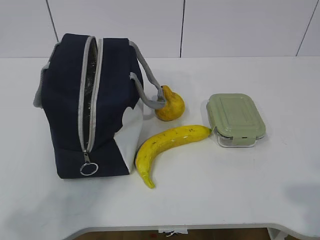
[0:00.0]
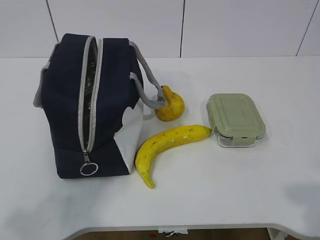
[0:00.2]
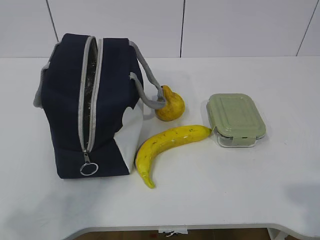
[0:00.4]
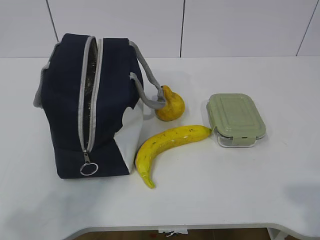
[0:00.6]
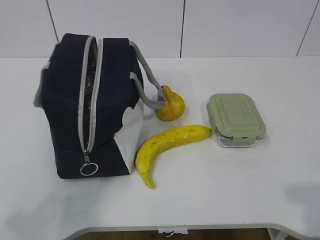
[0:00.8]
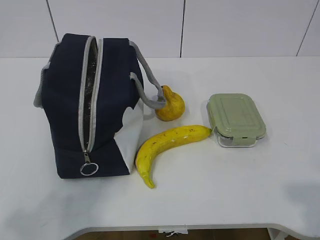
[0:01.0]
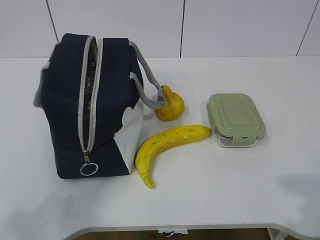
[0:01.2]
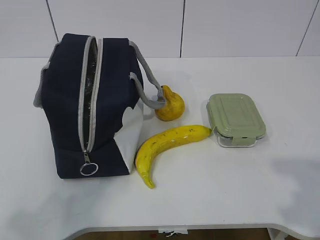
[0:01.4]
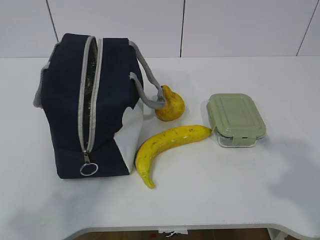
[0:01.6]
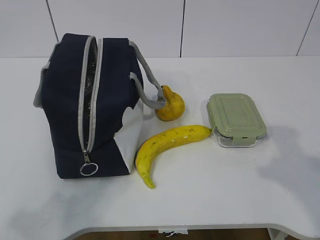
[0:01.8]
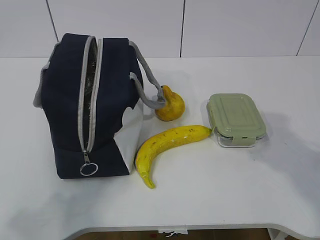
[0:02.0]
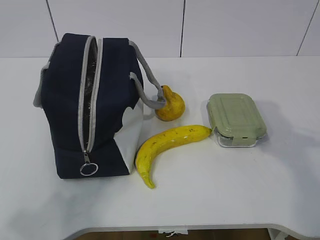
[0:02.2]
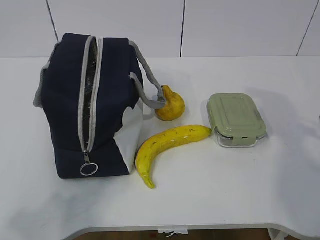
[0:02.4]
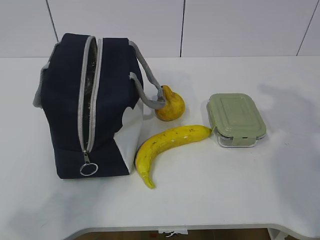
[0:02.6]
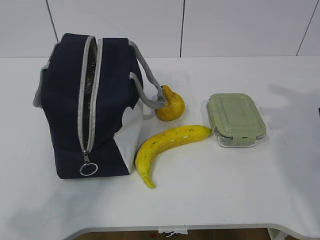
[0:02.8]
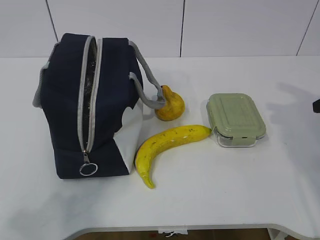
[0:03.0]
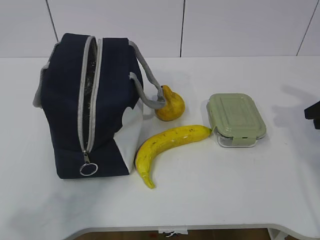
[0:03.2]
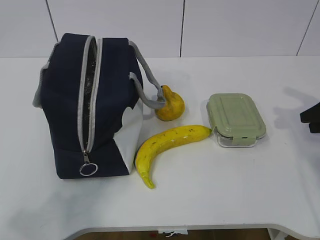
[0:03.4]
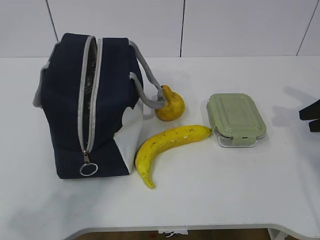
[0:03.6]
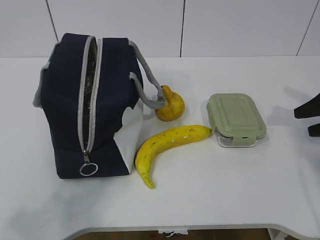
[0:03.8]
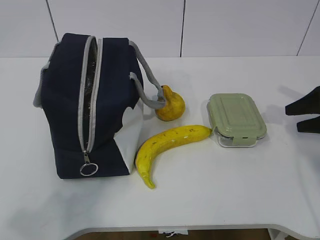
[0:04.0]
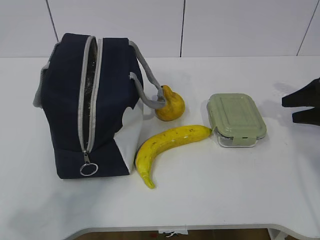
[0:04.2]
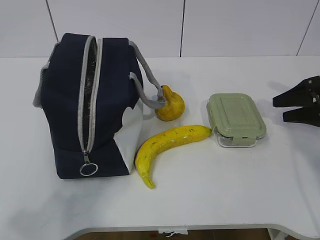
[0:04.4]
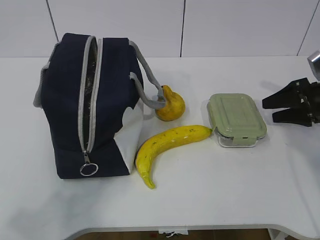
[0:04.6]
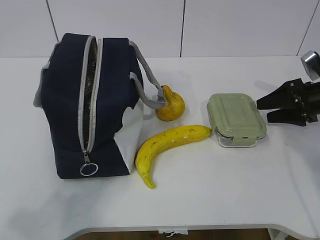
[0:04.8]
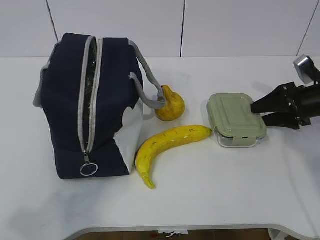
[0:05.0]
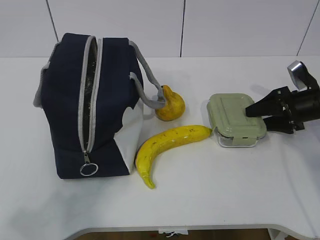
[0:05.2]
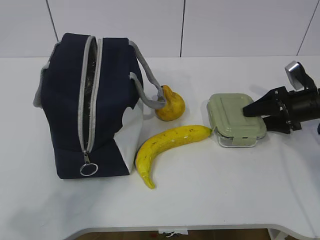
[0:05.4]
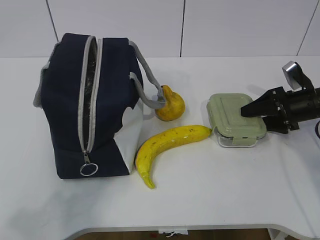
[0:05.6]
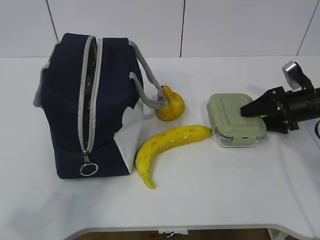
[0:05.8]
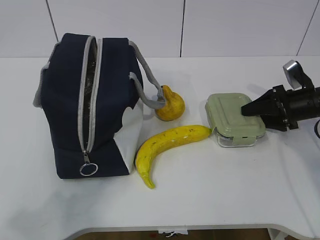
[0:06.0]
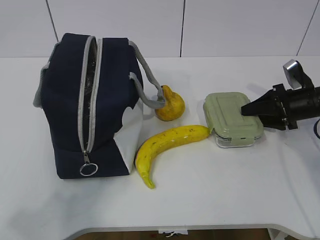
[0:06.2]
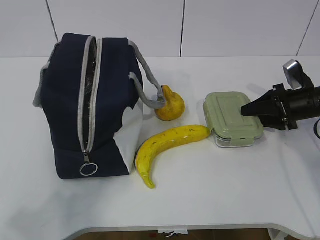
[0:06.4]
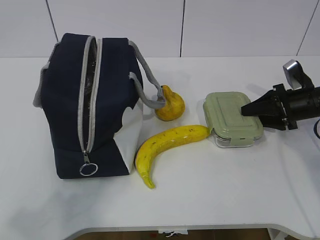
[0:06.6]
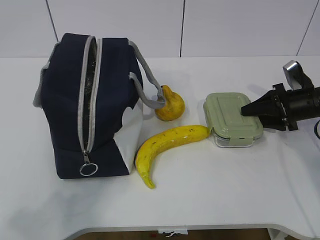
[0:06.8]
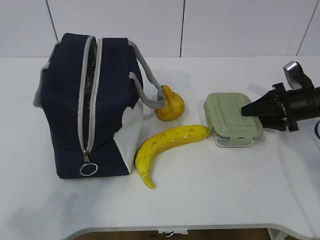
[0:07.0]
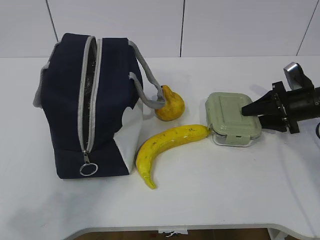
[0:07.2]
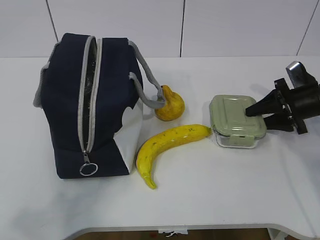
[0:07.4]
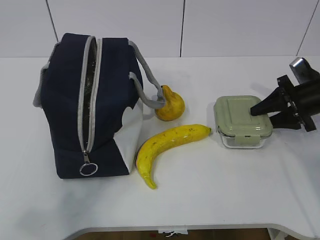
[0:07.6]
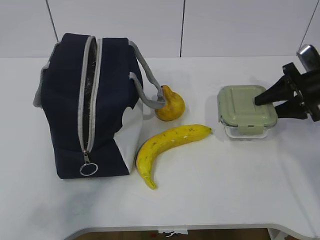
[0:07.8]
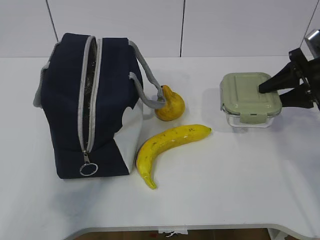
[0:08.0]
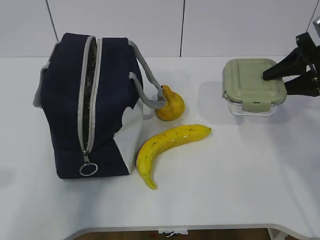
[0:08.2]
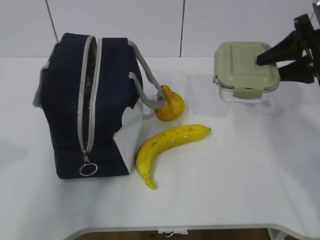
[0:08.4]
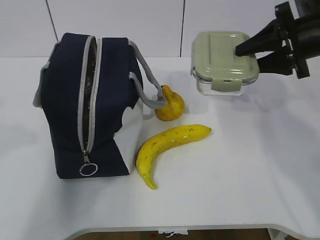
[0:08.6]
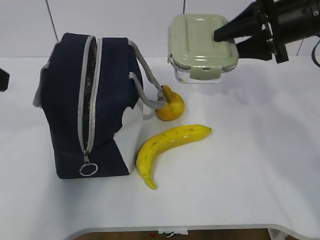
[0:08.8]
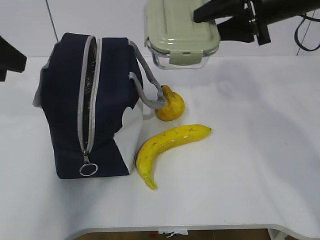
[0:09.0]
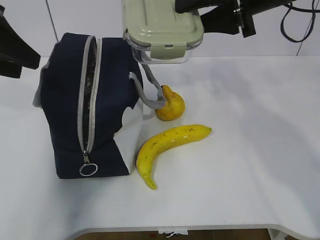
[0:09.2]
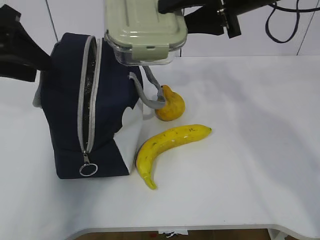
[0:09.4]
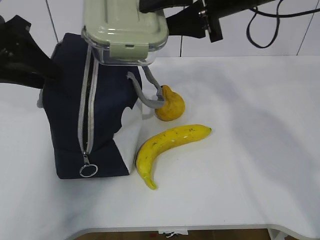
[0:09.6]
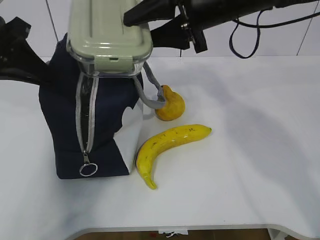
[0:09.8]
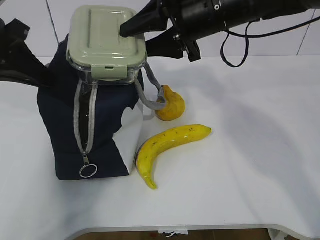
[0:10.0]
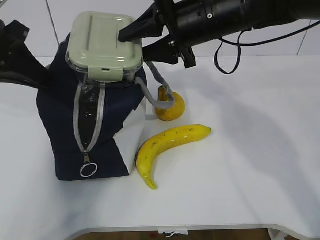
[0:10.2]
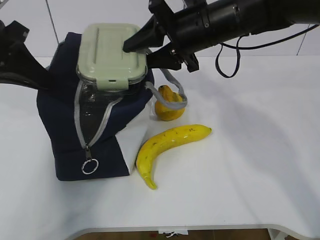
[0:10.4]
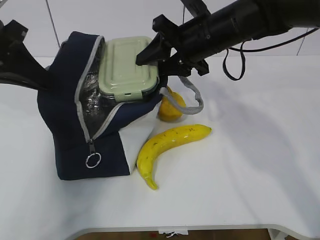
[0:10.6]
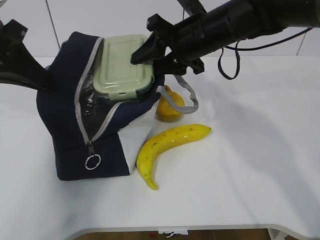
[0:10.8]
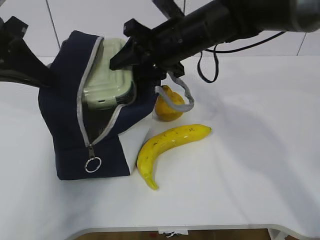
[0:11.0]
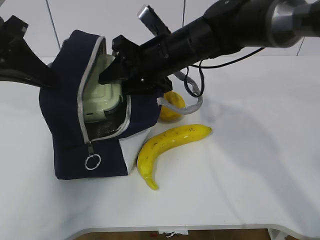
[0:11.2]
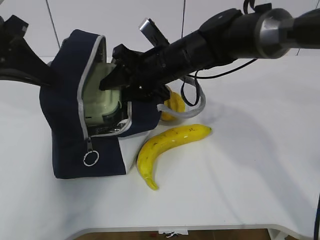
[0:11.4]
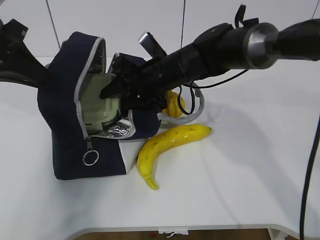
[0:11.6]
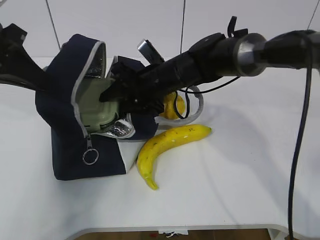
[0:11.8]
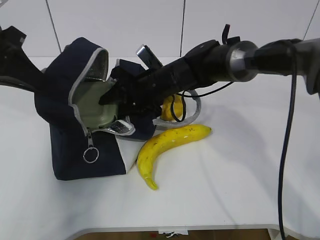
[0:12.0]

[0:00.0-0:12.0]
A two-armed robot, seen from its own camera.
Step, 0:00.0 to 0:06.2: Grasp the box with the right gripper.
0:01.6 to 0:03.0: The right gripper moves forward and to the right, about 25 cm.
0:03.0 to 0:04.4: The right gripper shifts approximately 10 cm downward and forward.
0:04.4 to 0:06.0: The right gripper is displaced to the left by about 5 cm.
0:06.0 to 0:07.6: The grippers move only a little.
0:07.6 to 0:09.0: The right gripper moves upward and to the left, approximately 25 cm; the left gripper goes approximately 25 cm forward.
0:09.0 to 0:10.4: The right gripper shifts some 10 cm to the left. The left gripper moves forward and downward, about 10 cm, and closes up.
0:10.4 to 0:12.0: The right gripper travels downward and to the left by roughly 15 cm.

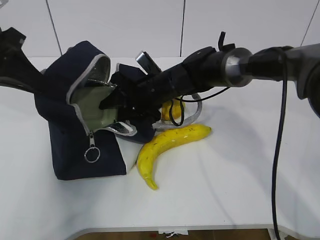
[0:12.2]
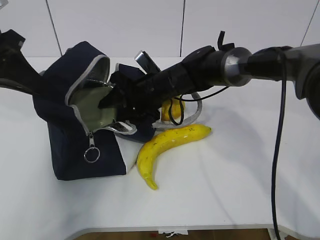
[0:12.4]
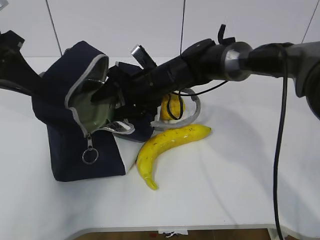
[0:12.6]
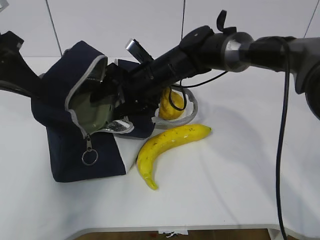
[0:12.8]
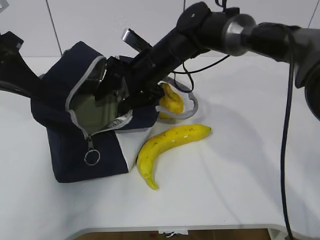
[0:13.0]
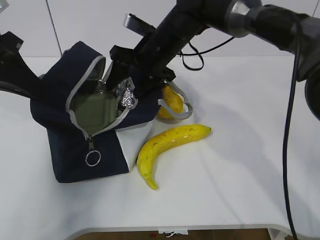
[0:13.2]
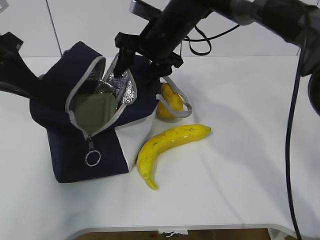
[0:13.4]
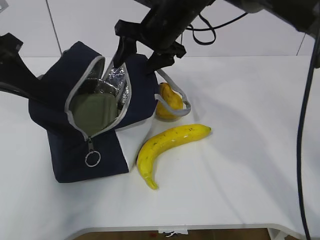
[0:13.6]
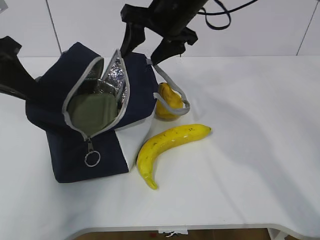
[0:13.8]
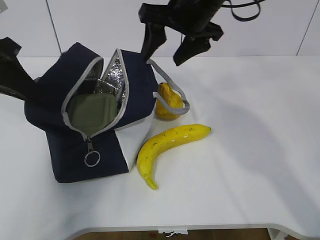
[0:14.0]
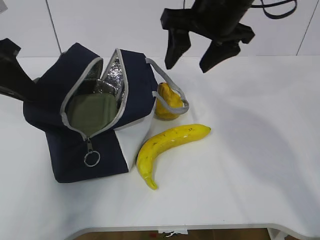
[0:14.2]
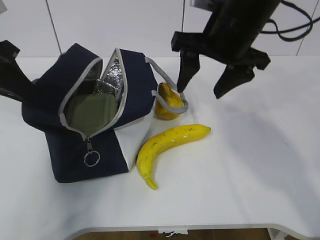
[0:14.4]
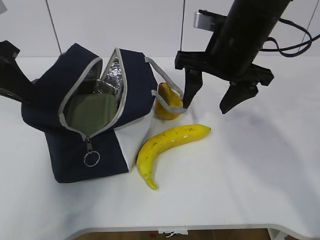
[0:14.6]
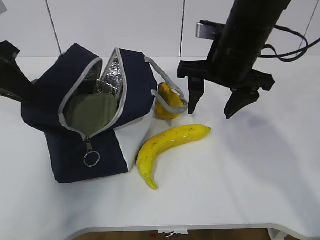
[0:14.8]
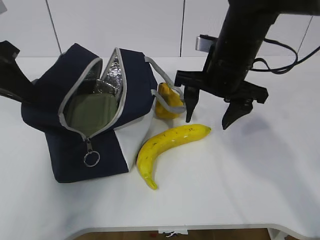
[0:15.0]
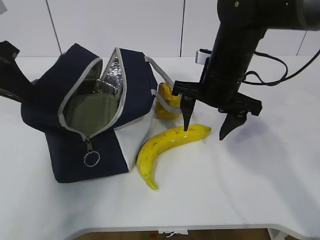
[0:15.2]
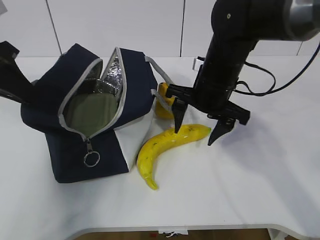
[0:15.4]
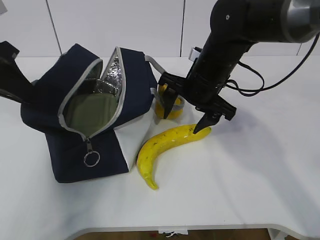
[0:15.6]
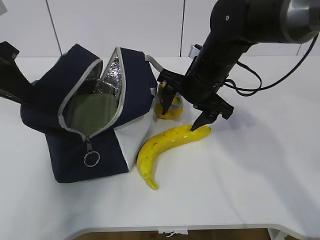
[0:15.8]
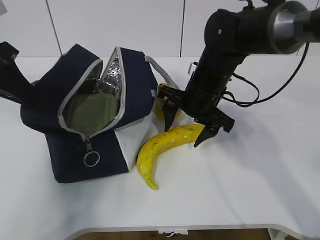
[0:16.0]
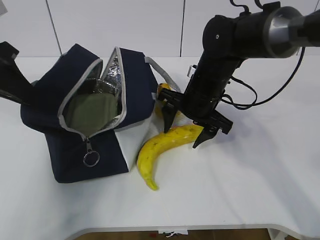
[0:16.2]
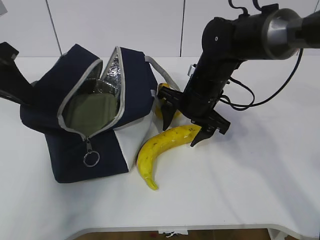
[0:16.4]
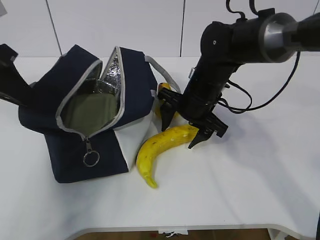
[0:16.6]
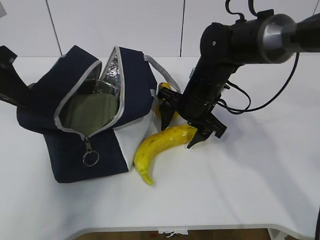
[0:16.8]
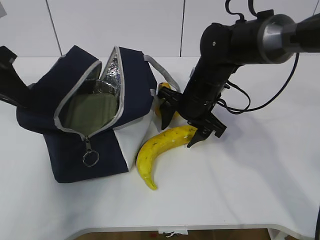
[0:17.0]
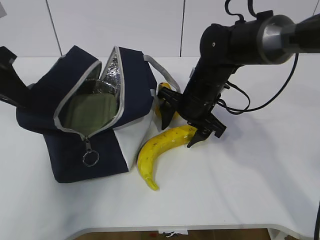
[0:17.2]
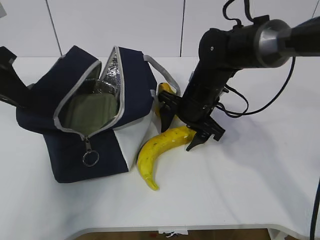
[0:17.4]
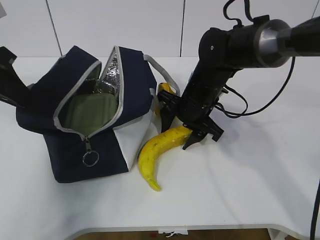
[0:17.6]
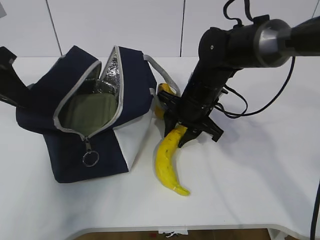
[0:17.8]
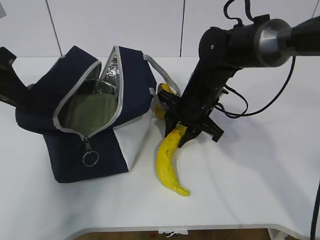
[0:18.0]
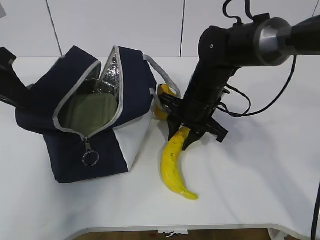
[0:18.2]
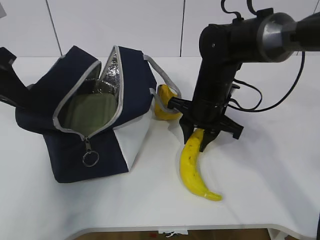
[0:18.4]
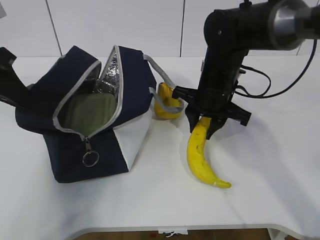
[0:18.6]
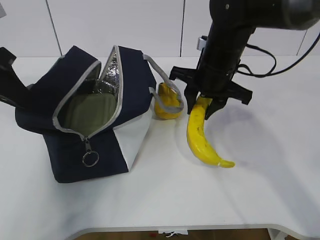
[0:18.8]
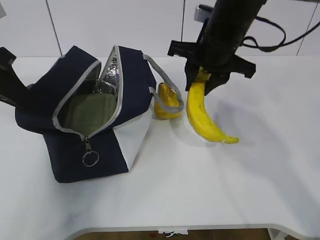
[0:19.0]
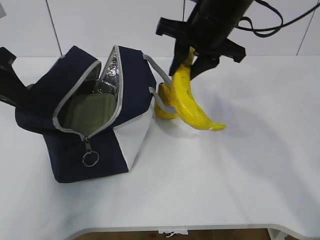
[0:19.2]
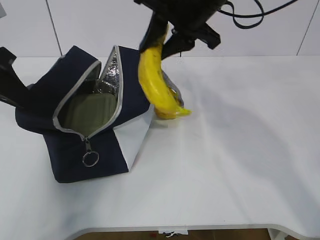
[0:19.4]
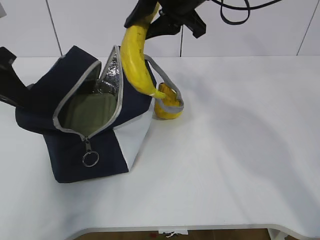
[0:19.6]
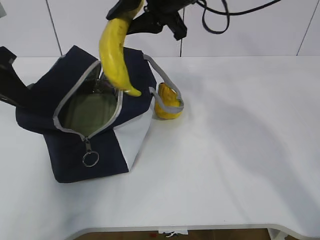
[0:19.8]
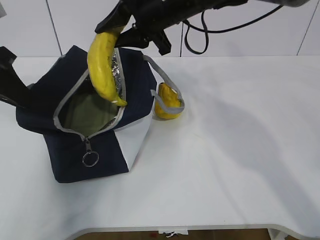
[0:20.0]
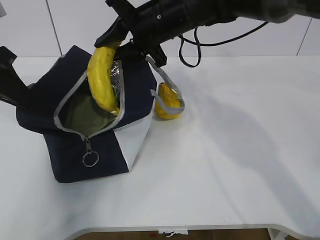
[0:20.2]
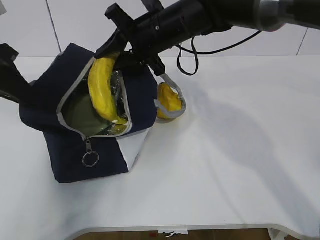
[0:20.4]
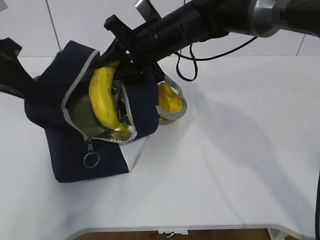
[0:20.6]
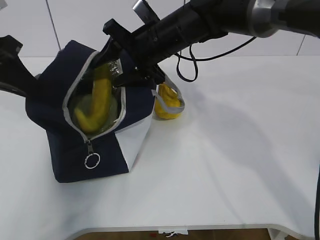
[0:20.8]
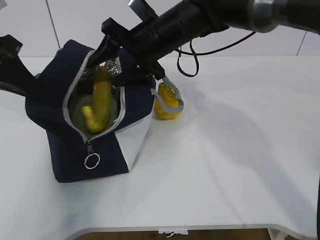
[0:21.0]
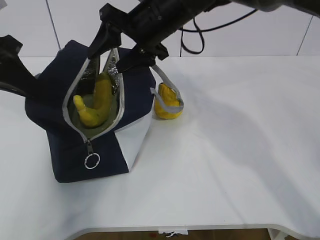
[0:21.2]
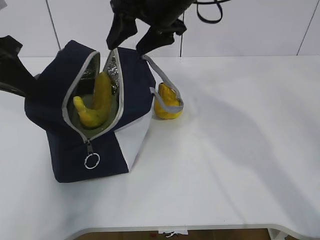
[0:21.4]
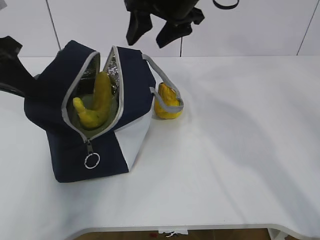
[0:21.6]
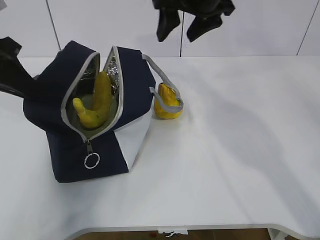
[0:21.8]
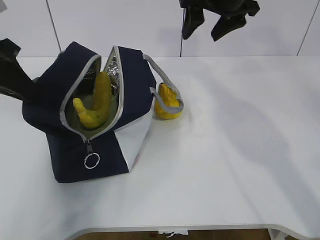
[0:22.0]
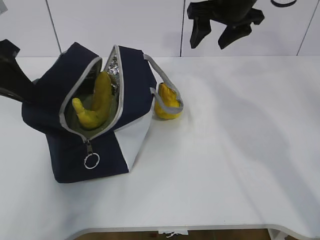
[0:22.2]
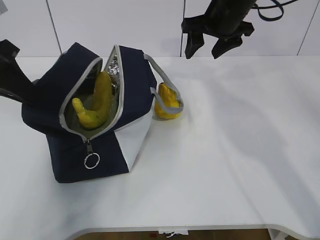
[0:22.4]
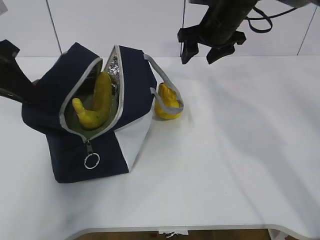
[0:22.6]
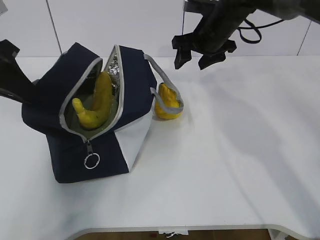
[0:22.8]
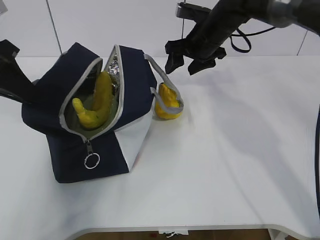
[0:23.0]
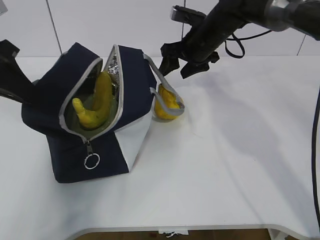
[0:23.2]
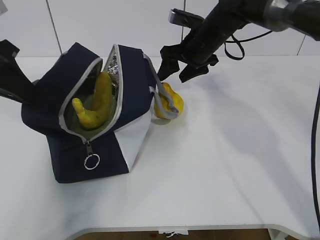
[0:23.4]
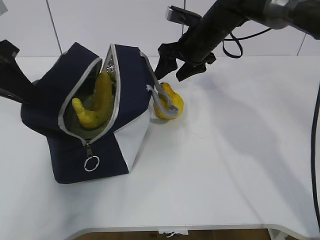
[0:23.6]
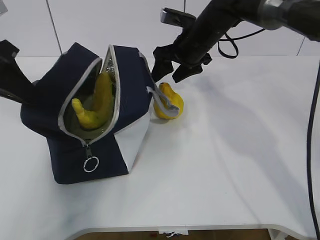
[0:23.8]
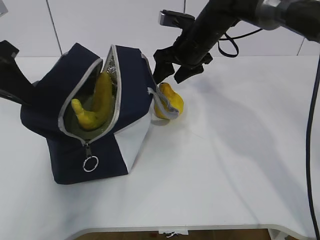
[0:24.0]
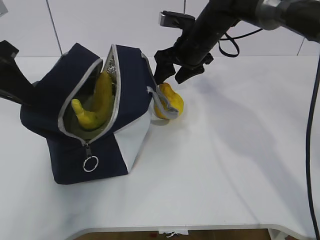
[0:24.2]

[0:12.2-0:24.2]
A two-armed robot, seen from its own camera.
Step, 0:13.6 to 0:17.8: Grasp the banana with the right gripper.
Step, 0:18.0 to 0:21.0: Place the banana into the package with the right gripper.
0:12.2 to 0:13.8: The right gripper moves upward, some 15 cm, and opens its fingers.
0:13.8 to 0:15.2: The right gripper is displaced downward, backward and to the right by roughly 10 cm.
0:15.2 to 0:16.6: The right gripper shifts approximately 5 cm downward.
0:16.6 to 0:18.2: The right gripper closes its fingers.
0:18.2 to 0:19.8: The right gripper shifts some 20 cm upward.
0:19.8 to 0:21.2: The right gripper is displaced downward by about 5 cm, and opens up.
0:21.2 to 0:22.6: The right gripper shifts roughly 15 cm to the right and forward.
0:22.6 to 0:24.2: The right gripper changes place by approximately 5 cm.
